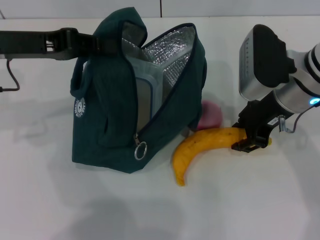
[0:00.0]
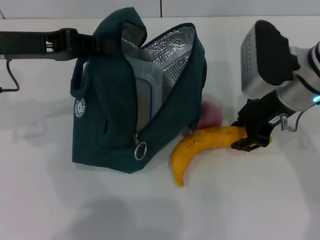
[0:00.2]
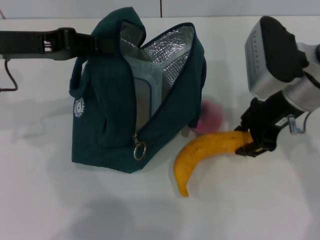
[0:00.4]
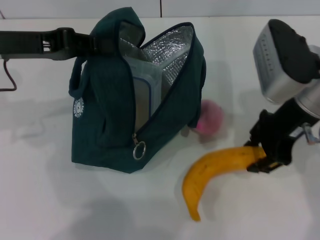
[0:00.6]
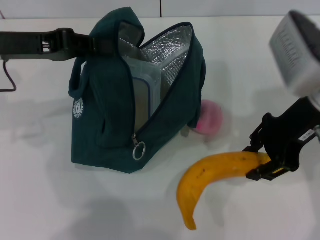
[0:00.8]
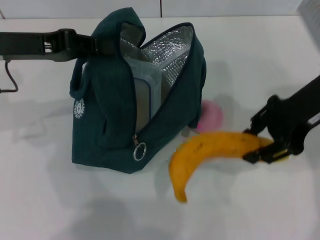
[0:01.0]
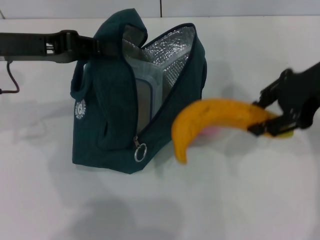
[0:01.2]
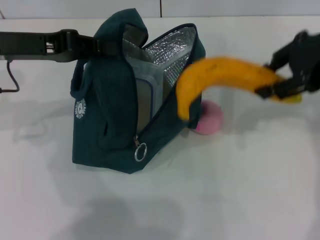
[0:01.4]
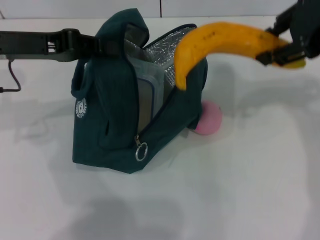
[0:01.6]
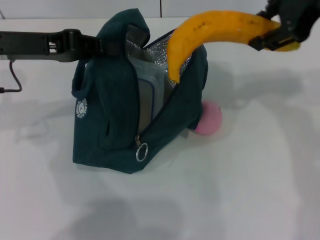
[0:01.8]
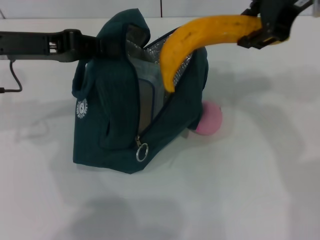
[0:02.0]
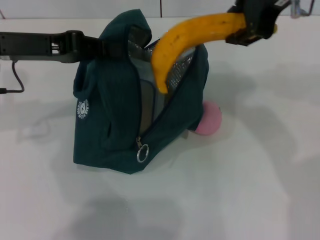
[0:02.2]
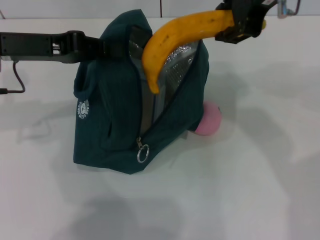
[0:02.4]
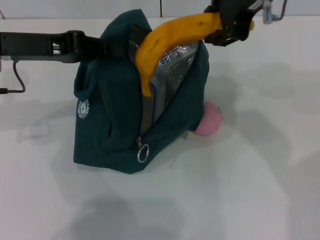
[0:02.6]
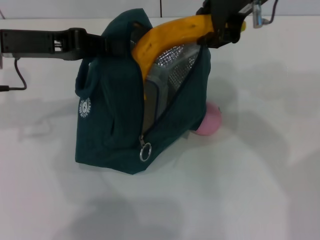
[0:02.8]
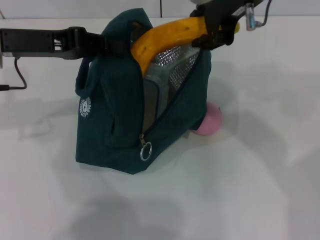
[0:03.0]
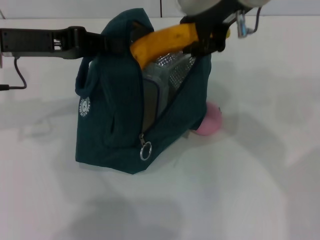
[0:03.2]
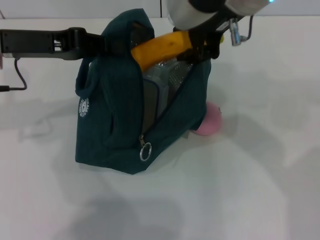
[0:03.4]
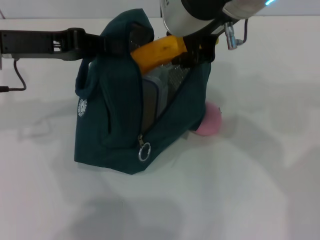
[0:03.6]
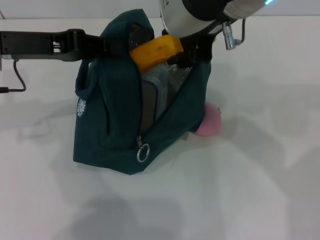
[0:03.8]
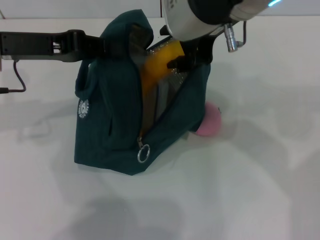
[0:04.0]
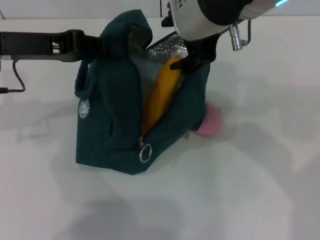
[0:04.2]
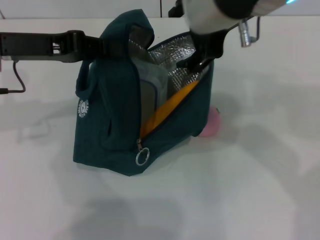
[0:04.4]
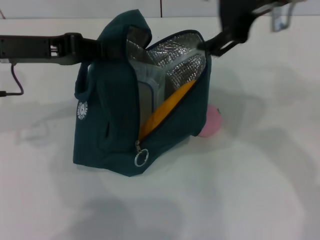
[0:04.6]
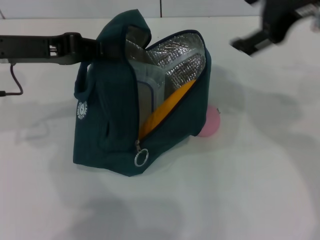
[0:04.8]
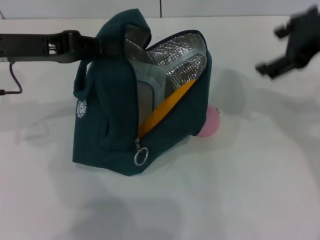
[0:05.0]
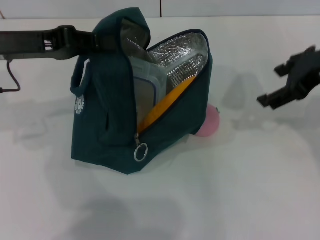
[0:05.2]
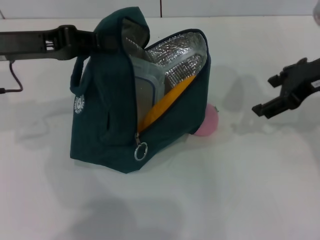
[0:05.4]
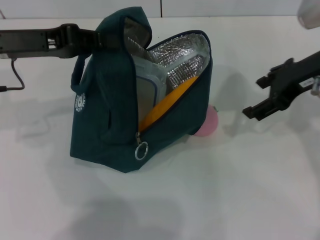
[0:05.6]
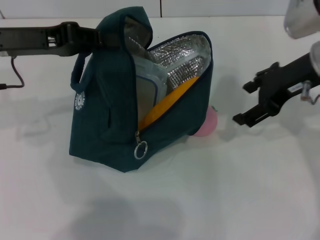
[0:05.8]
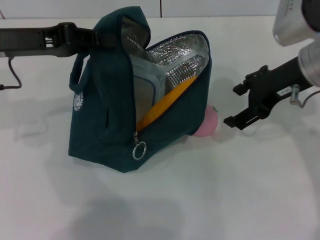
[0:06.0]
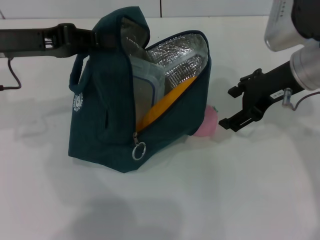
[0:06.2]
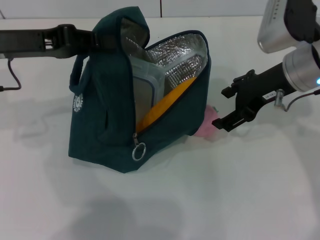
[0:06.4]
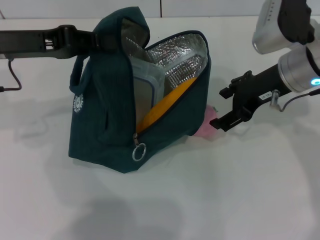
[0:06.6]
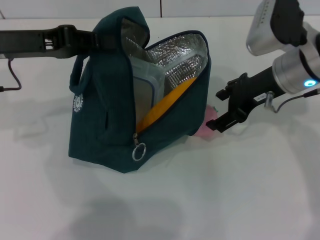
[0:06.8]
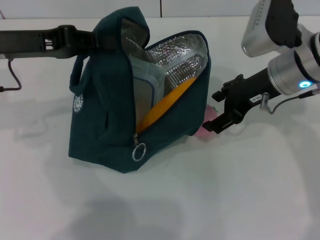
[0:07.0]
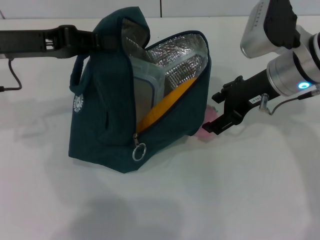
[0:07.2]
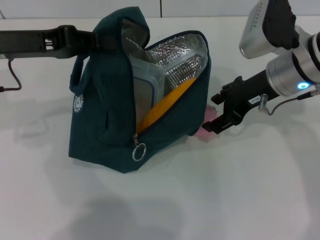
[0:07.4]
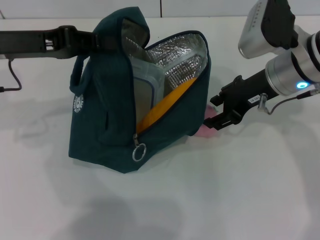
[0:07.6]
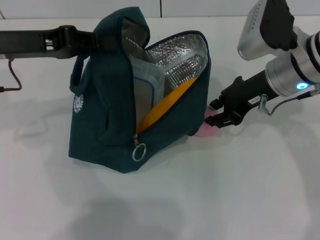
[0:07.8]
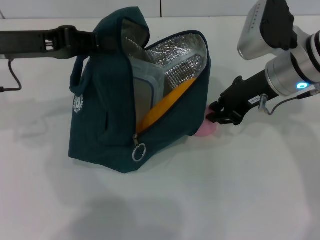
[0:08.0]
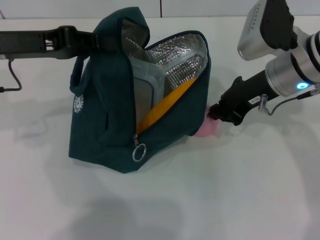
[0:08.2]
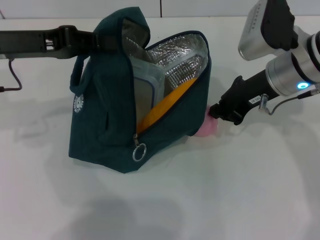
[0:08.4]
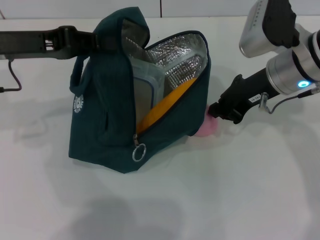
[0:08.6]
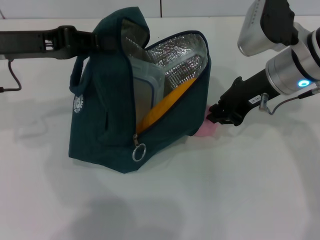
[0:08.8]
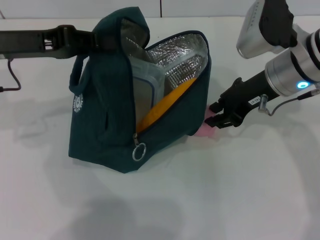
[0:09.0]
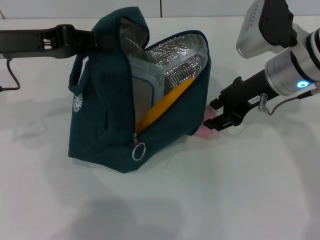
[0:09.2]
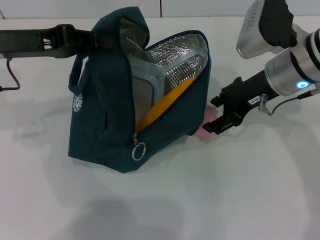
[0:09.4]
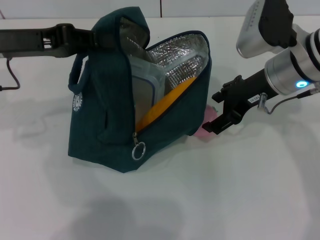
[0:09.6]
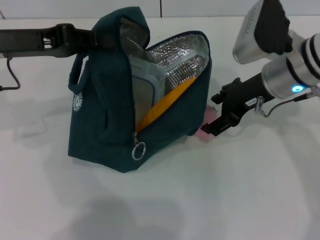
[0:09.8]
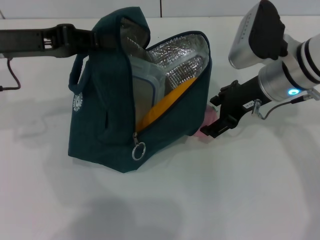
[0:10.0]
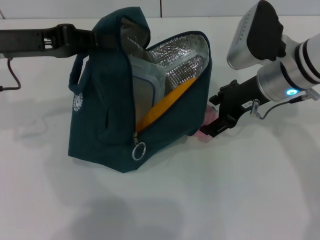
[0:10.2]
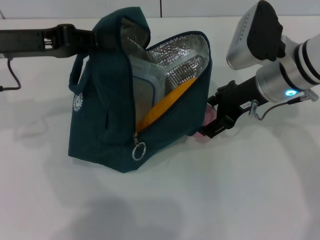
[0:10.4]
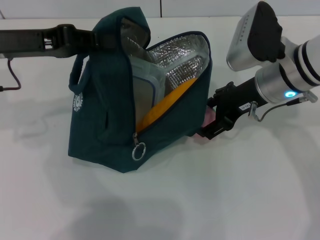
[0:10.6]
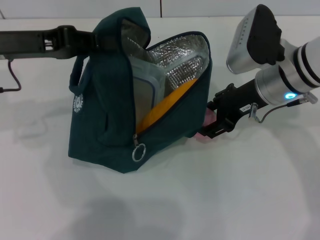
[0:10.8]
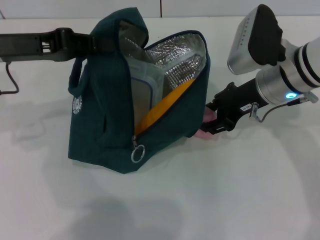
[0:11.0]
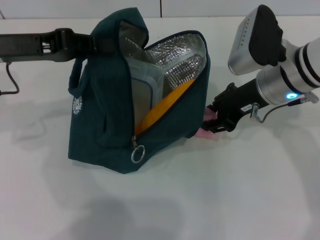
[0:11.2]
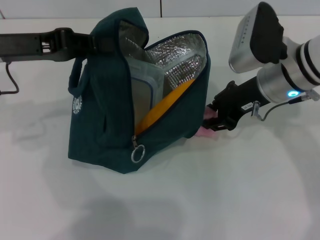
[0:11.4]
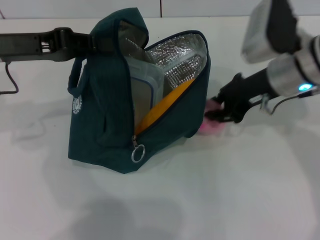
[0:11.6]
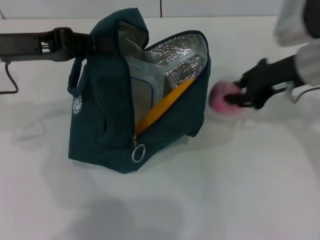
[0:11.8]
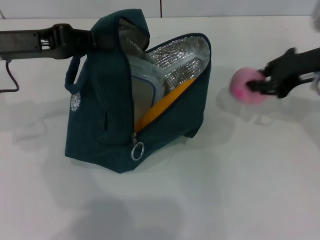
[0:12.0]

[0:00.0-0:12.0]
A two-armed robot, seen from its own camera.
Step, 0:00.2 to 0:04.0: Put the banana into the lunch bag with your right hand.
Step, 0:04.4 to 0:11.2: Grab the peach with your right hand.
0:00.0 to 0:01.6: The right gripper shifts roughly 15 cm upward.
0:01.6 to 0:03.0: The right gripper goes about 15 cm to the left.
0:03.0 to 0:04.4: The grippers move only a little.
0:04.4 to 0:06.0: The right gripper moves downward and to the right, some 15 cm.
0:06.0 to 0:07.6: The grippers move only a little.
0:07.6 to 0:09.0: The right gripper closes up.
0:09.0 to 0:10.4: The right gripper opens up.
0:10.4 to 0:12.0: The right gripper travels to the right by roughly 10 cm, and closes its fingers.

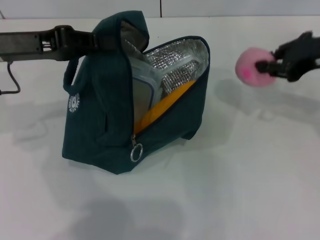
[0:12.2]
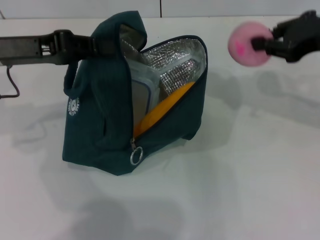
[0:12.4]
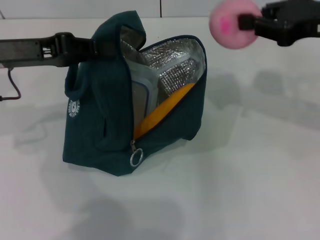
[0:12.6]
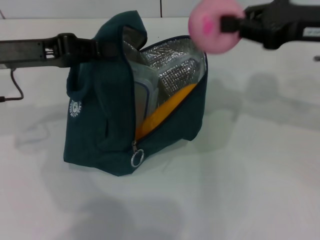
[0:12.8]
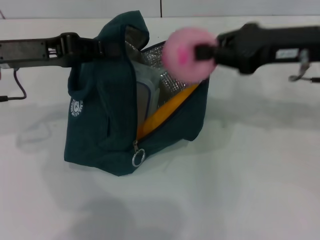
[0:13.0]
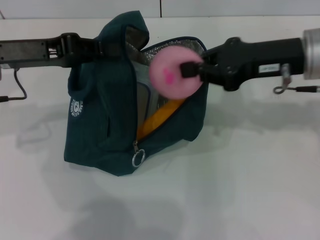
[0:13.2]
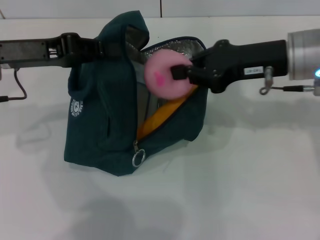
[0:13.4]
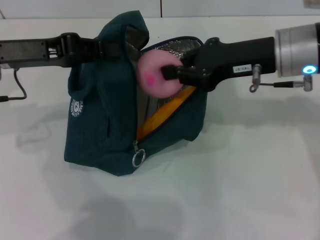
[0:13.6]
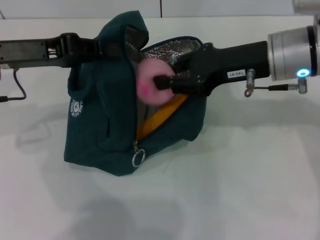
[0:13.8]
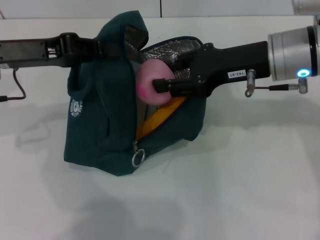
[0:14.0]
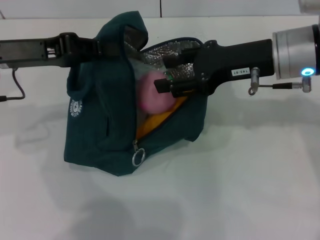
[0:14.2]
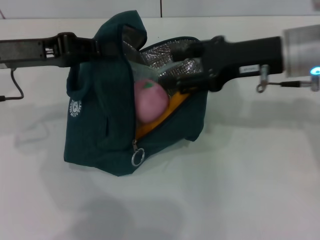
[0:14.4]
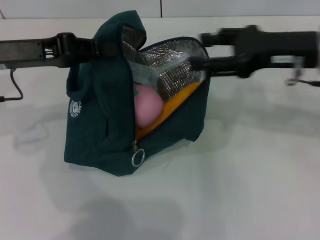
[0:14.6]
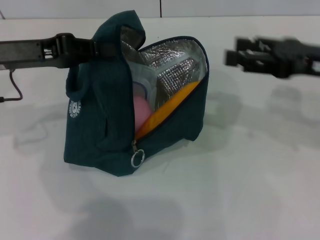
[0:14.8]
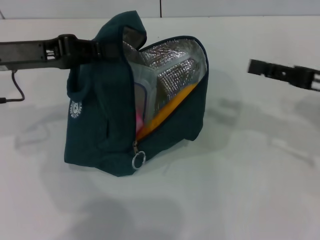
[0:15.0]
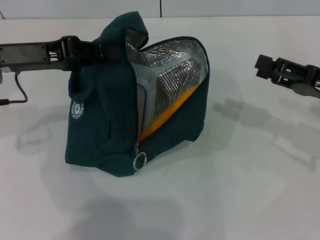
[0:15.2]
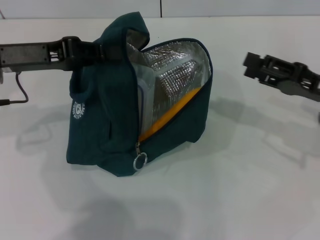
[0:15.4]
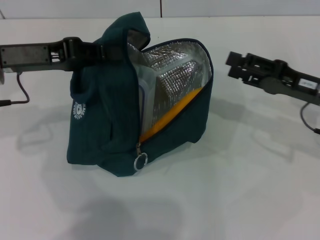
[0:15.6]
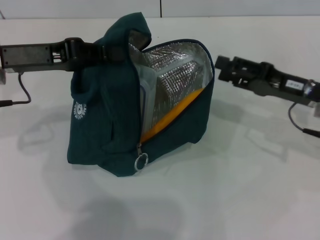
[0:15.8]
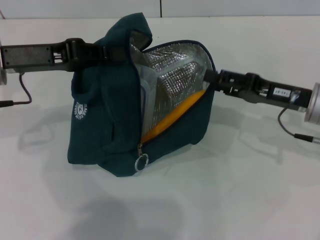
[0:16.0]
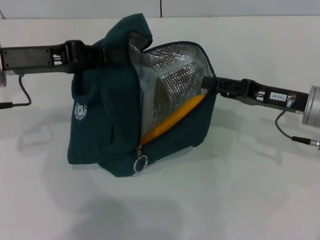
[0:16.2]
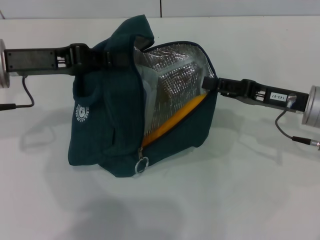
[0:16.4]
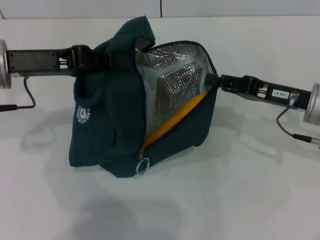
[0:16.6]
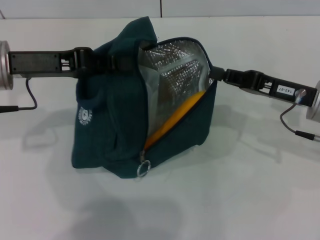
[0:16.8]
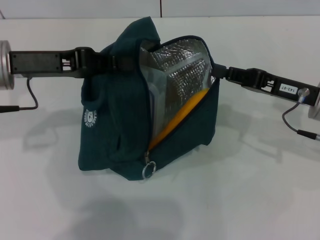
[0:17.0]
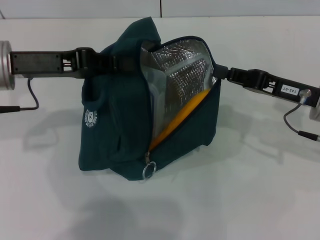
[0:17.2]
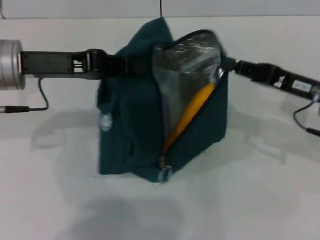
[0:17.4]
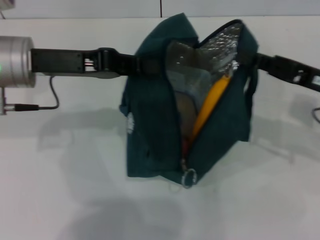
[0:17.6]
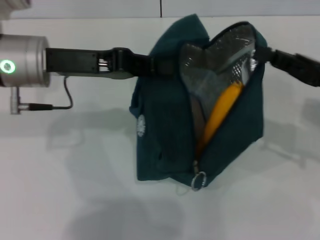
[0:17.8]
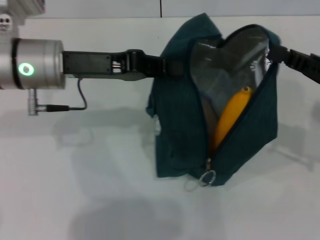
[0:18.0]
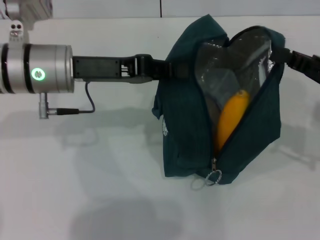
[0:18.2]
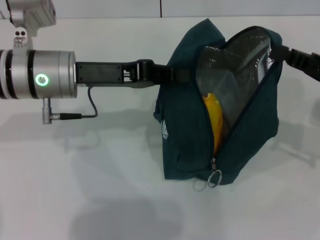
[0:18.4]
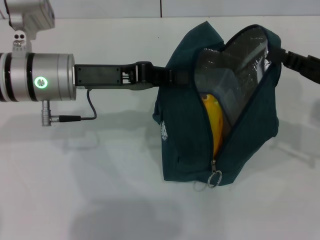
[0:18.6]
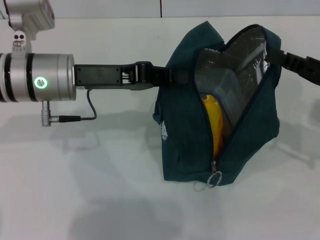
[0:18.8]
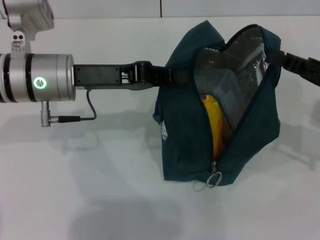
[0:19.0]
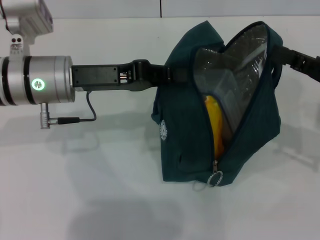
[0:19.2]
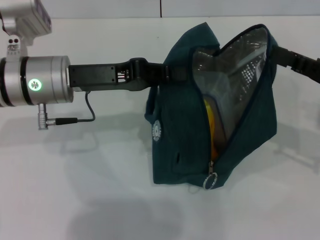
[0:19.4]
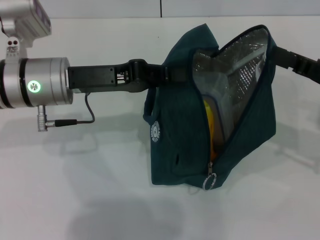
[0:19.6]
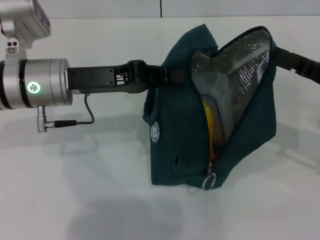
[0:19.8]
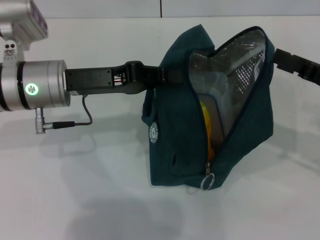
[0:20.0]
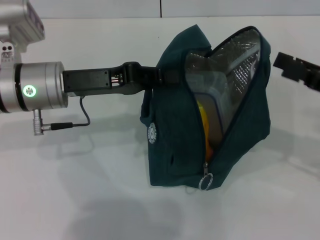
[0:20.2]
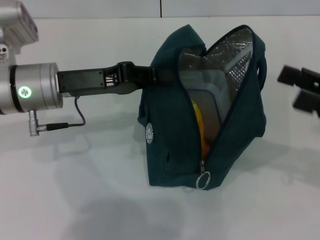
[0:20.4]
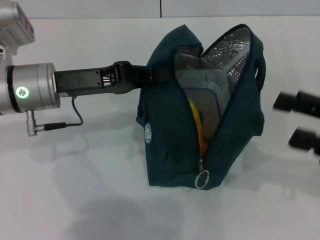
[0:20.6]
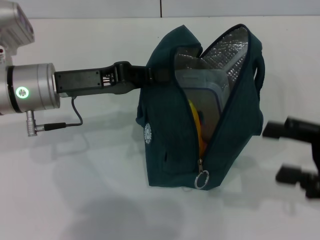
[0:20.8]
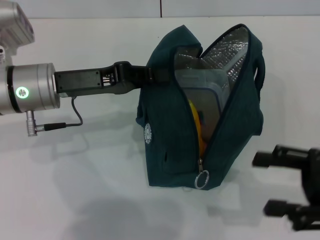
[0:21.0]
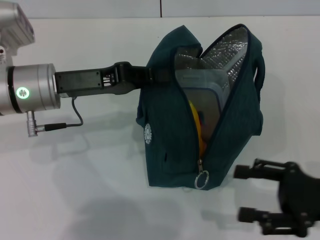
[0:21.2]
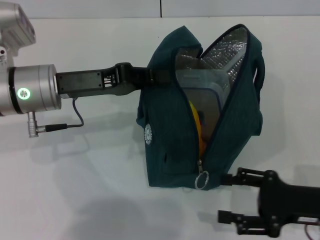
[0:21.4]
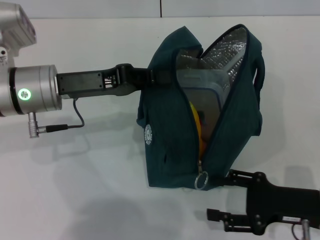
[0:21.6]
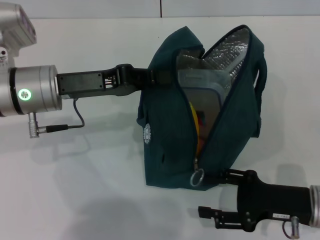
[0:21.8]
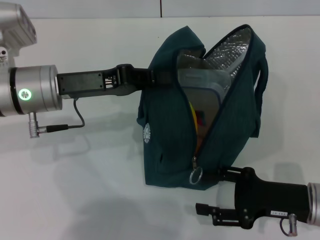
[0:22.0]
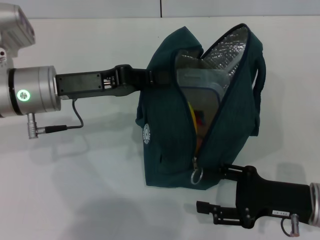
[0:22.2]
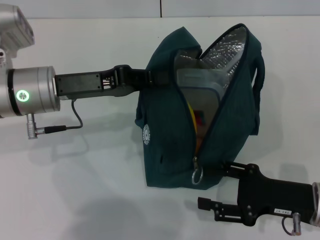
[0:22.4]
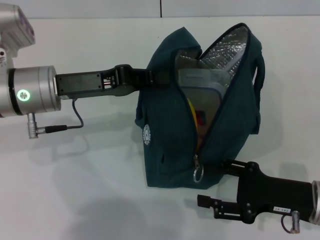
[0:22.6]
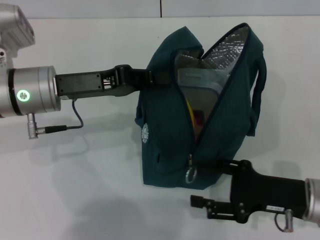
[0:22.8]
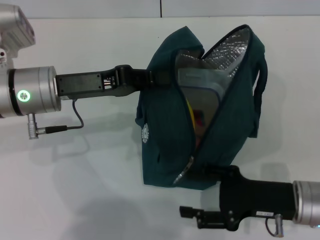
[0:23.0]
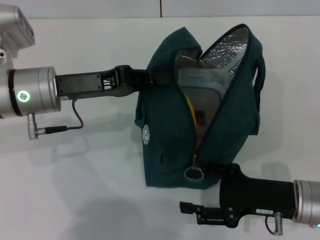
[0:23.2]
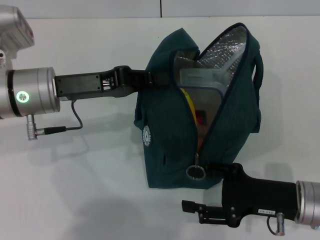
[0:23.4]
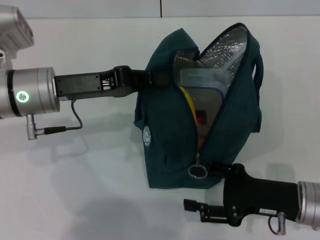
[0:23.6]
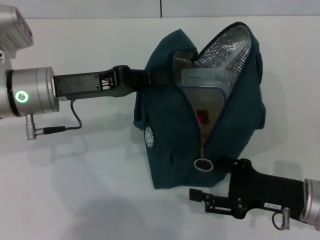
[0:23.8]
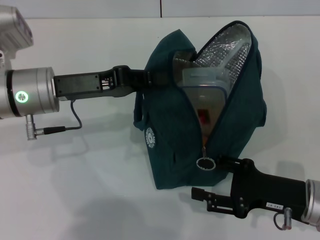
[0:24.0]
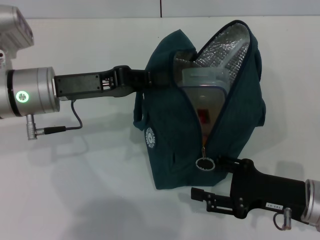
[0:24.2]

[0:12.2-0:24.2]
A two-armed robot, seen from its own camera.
Step, 0:14.6 to 0:19.6: Hold the lunch bag with your right hand.
0:12.2 to 0:13.8: The right gripper heads to the left, covering roughly 10 cm.
0:13.8 to 0:15.2: The right gripper moves to the right and downward, approximately 15 cm, and opens its fingers.
0:15.2 to 0:16.6: The right gripper shifts roughly 5 cm to the left, and closes up.
0:16.6 to 0:18.2: The right gripper moves to the right and upward, some 10 cm. Meanwhile the left gripper moves to the right, about 5 cm.
0:18.2 to 0:19.8: The right gripper opens.
0:19.8 to 0:21.2: The right gripper travels backward and downward by approximately 10 cm.
0:21.2 to 0:22.6: The right gripper changes place by some 5 cm.
0:22.6 to 0:24.2: The grippers move only a little.
